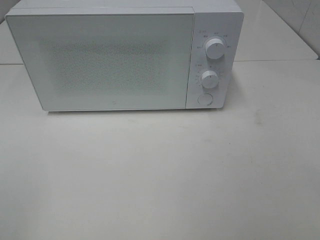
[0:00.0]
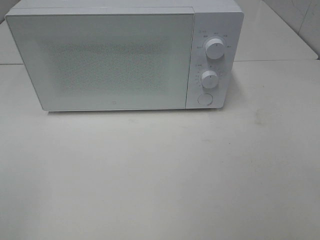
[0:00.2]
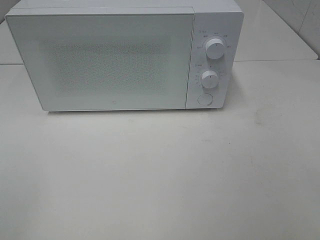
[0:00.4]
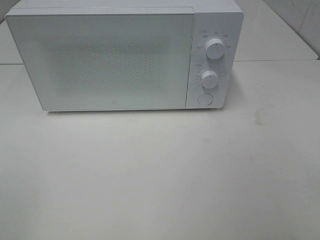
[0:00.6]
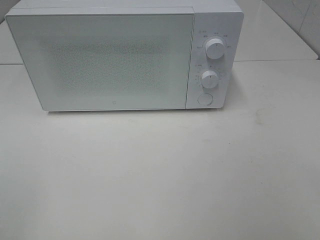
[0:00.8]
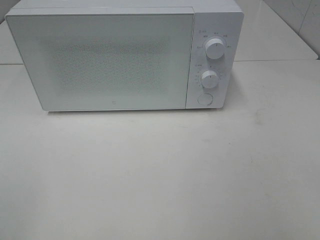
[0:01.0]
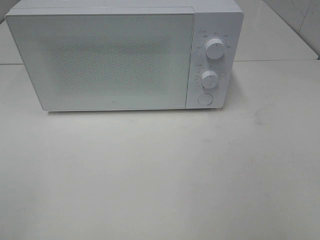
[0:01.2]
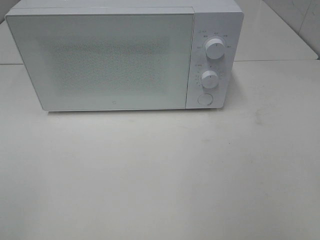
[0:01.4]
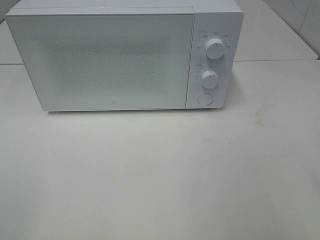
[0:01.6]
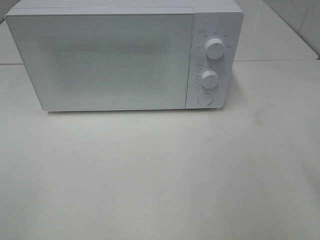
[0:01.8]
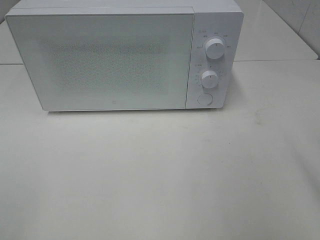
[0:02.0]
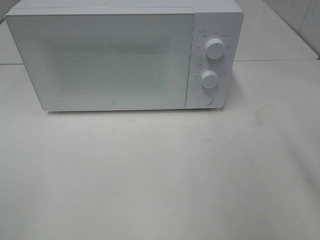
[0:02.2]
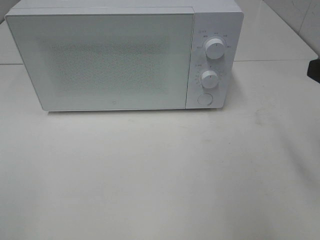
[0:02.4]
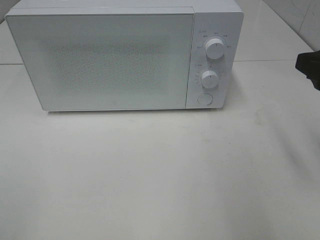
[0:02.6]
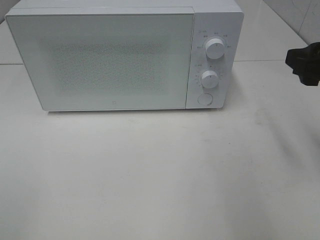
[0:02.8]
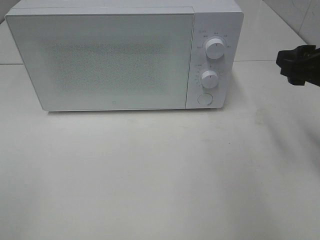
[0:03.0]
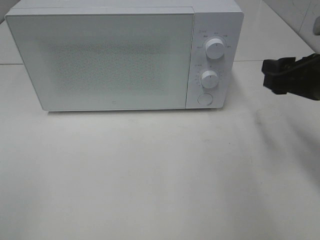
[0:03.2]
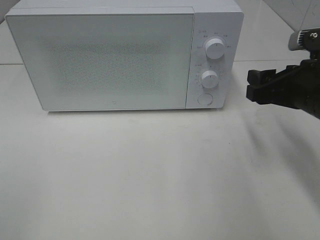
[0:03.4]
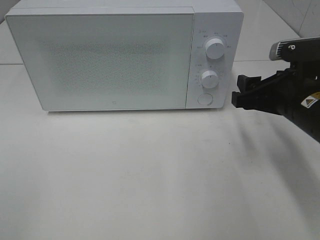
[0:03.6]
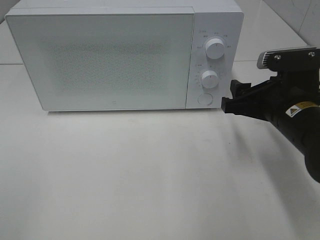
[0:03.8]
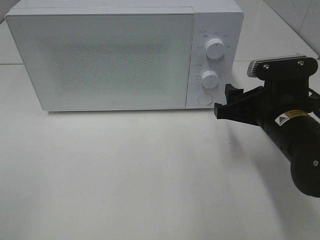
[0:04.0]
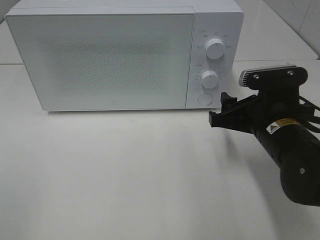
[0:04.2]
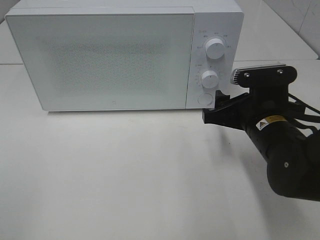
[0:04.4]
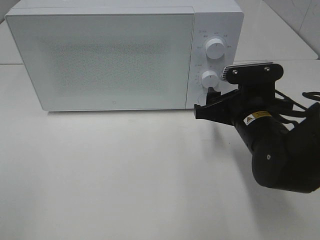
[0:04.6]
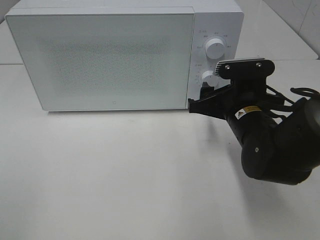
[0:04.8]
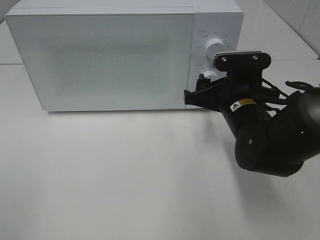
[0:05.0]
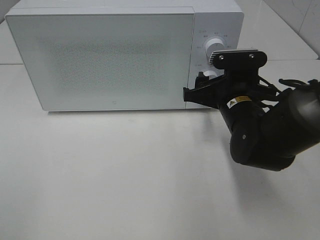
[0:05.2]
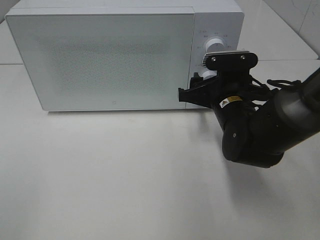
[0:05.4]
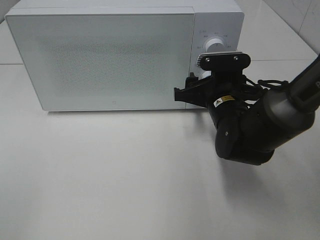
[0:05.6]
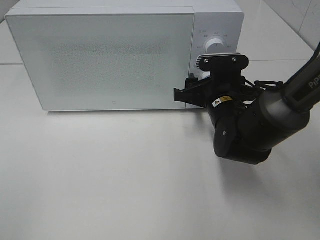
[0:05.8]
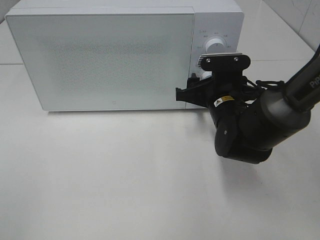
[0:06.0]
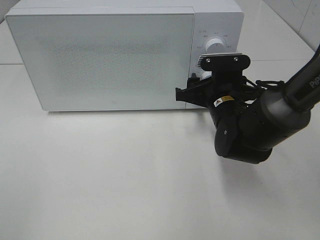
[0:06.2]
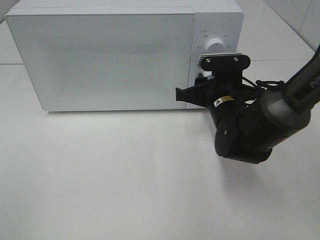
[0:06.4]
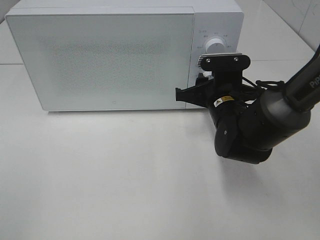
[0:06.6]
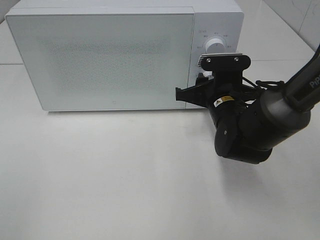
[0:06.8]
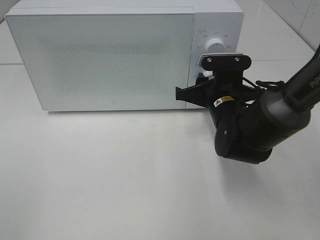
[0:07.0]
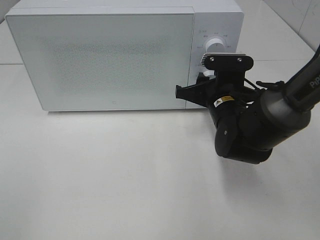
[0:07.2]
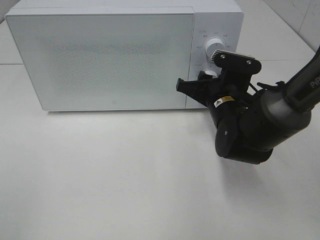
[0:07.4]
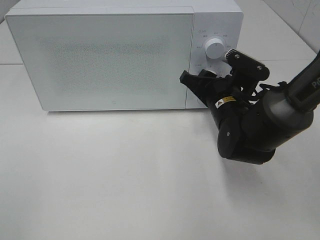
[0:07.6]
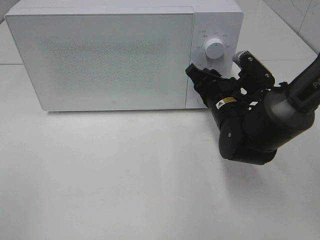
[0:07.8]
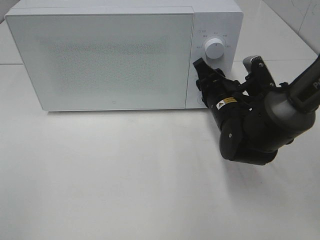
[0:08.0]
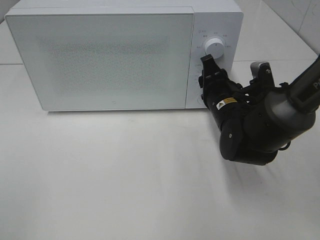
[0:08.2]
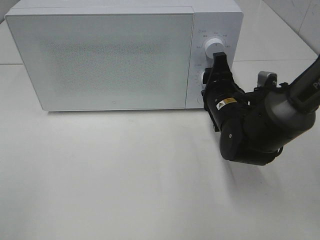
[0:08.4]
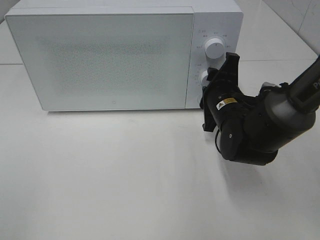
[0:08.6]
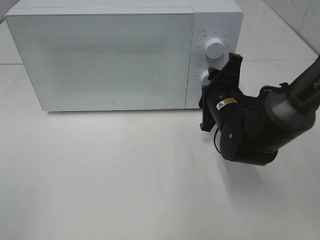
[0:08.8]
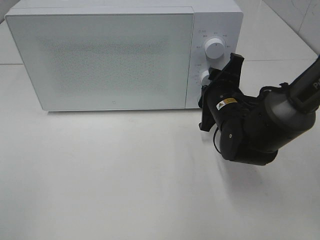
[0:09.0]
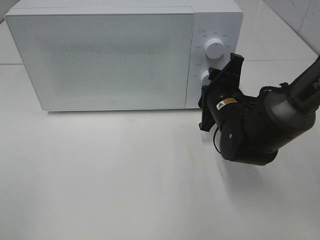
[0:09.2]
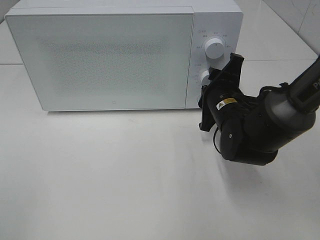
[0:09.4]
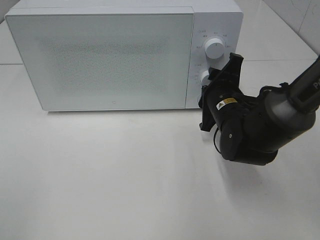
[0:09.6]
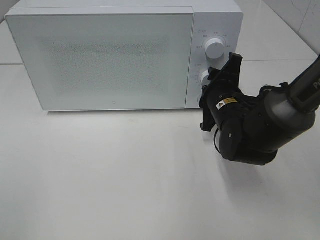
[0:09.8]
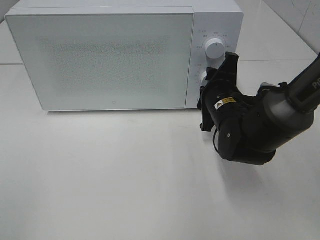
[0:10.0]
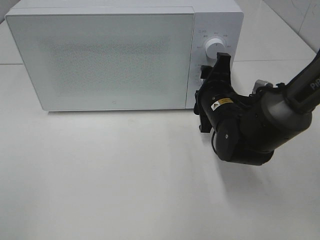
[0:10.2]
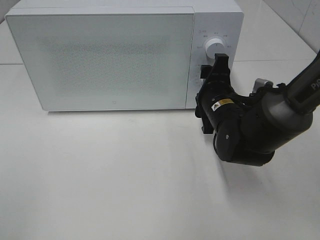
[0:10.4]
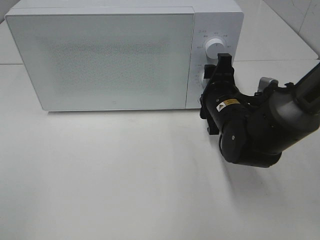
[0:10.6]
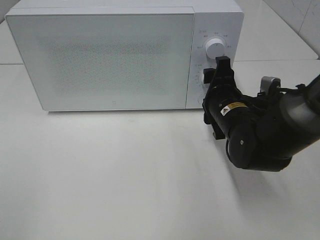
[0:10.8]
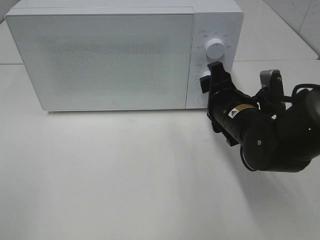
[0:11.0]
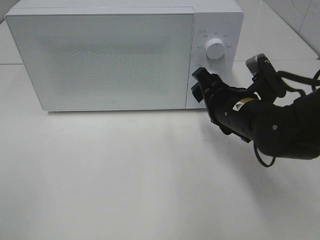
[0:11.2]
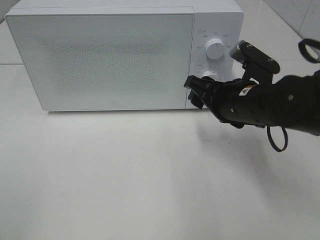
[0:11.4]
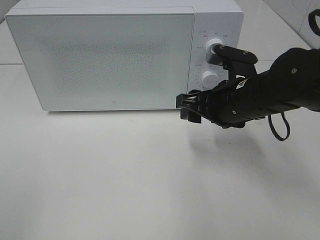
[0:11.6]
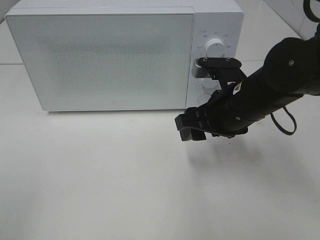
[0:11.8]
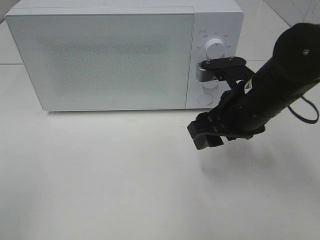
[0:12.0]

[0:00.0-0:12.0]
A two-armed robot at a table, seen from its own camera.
Task of the whole recording: Heat the burger.
Step, 0:00.0 to 0:10.0: Right hand: twist timer button.
0:01.6 to 0:03.0: The right gripper heads forward and downward, covering some 15 cm.
0:03.0 to 0:04.4: The right gripper goes roughly 15 cm downward and to the left.
0:04.4 to 0:06.0: The right gripper goes approximately 10 cm forward.
0:09.0 to 0:10.4: The grippers make only small movements.
0:10.4 to 0:12.0: The right gripper heads upward and backward, covering some 10 cm.

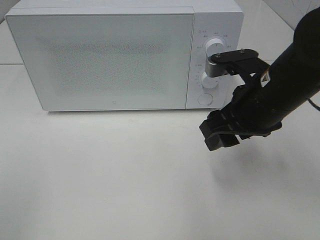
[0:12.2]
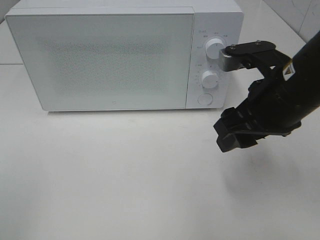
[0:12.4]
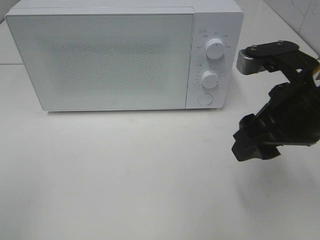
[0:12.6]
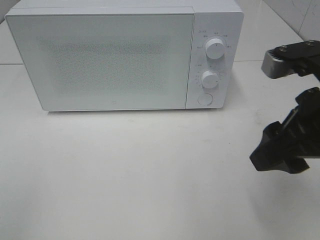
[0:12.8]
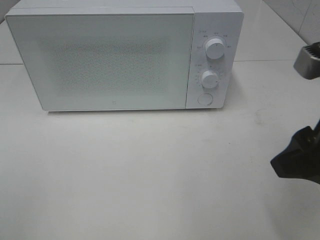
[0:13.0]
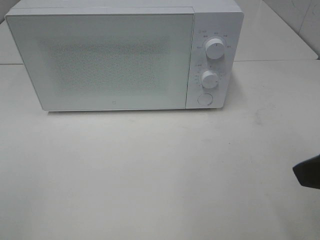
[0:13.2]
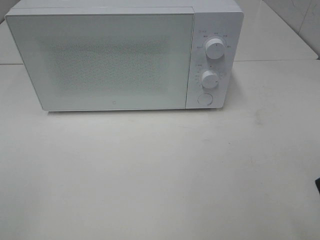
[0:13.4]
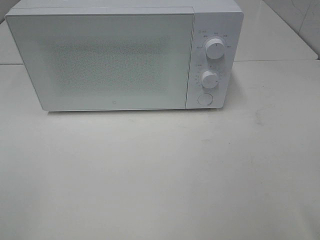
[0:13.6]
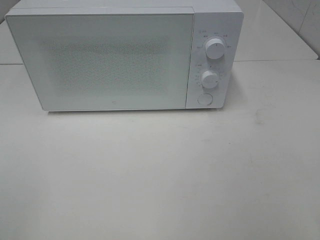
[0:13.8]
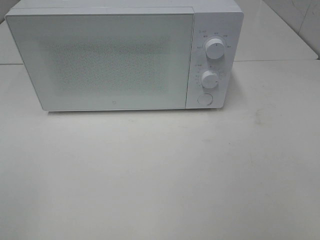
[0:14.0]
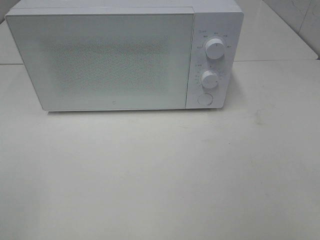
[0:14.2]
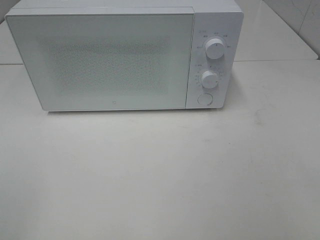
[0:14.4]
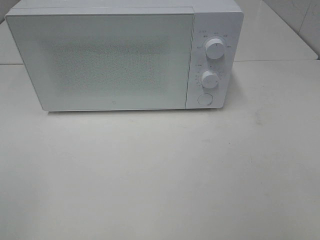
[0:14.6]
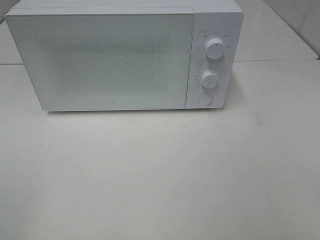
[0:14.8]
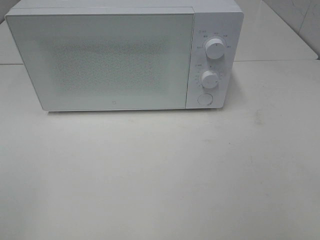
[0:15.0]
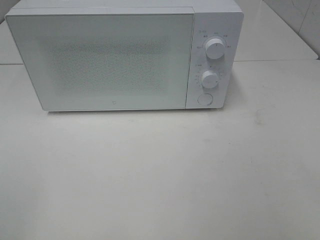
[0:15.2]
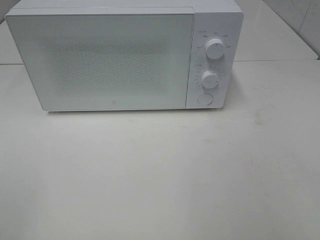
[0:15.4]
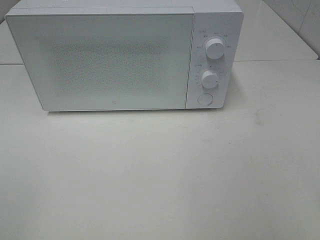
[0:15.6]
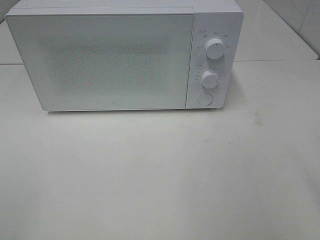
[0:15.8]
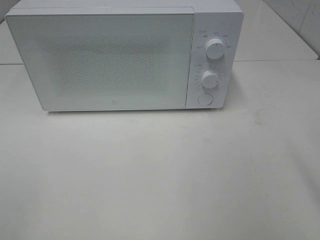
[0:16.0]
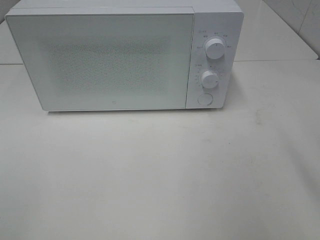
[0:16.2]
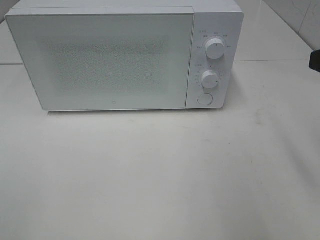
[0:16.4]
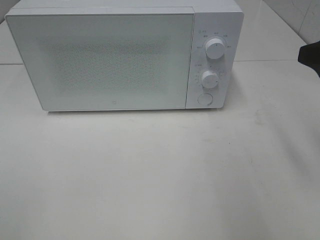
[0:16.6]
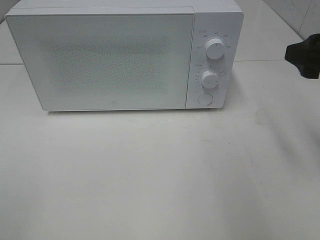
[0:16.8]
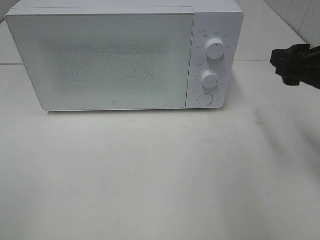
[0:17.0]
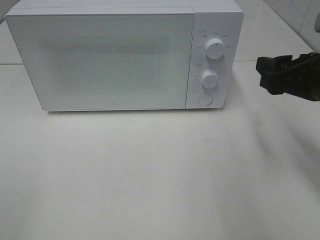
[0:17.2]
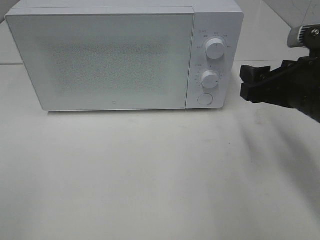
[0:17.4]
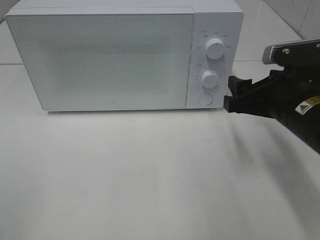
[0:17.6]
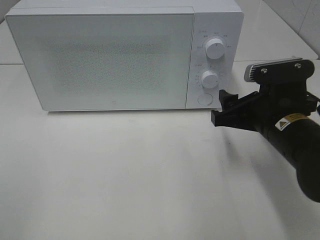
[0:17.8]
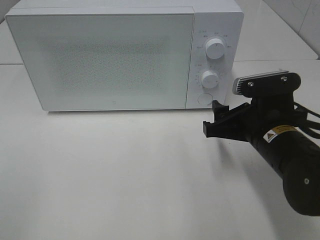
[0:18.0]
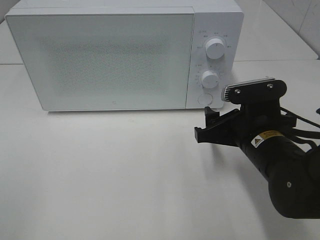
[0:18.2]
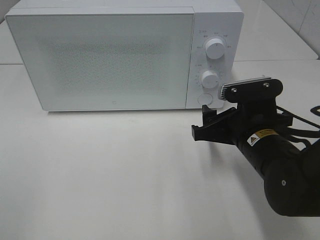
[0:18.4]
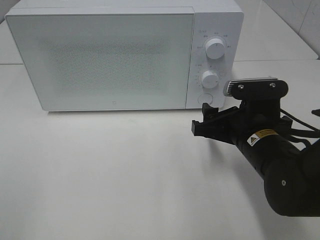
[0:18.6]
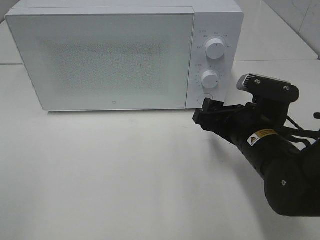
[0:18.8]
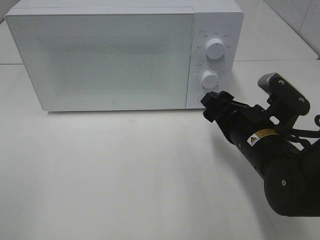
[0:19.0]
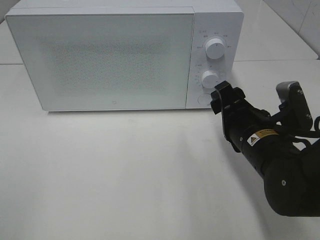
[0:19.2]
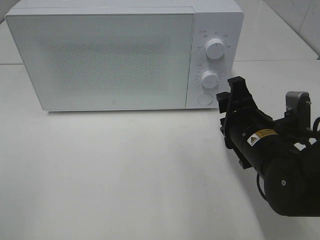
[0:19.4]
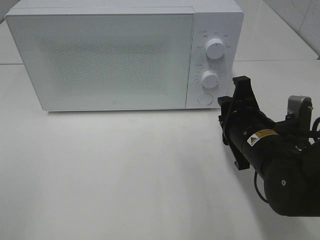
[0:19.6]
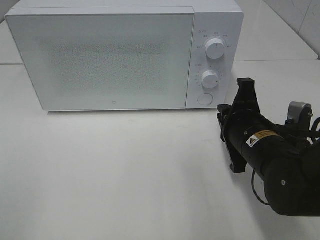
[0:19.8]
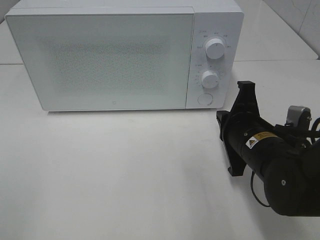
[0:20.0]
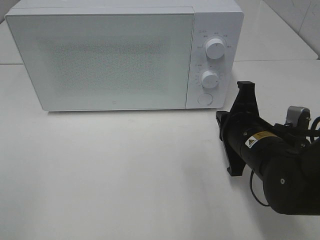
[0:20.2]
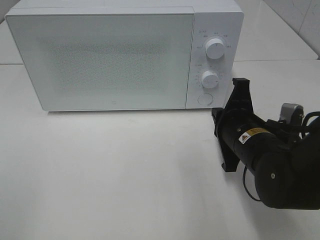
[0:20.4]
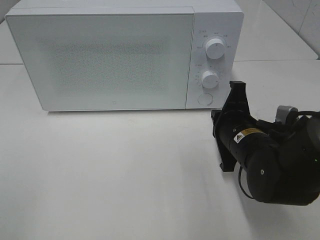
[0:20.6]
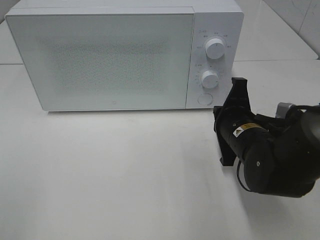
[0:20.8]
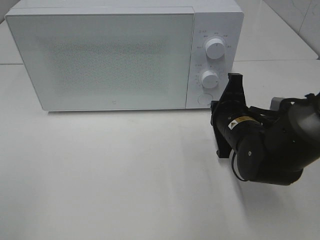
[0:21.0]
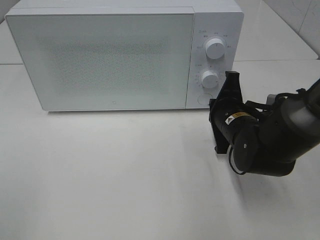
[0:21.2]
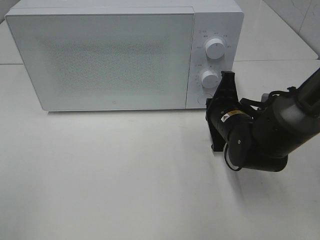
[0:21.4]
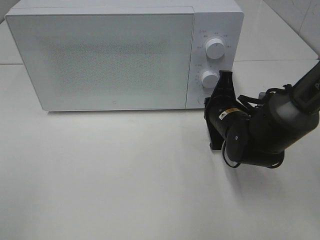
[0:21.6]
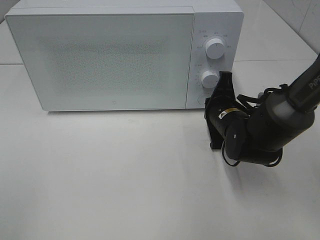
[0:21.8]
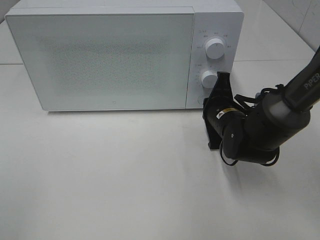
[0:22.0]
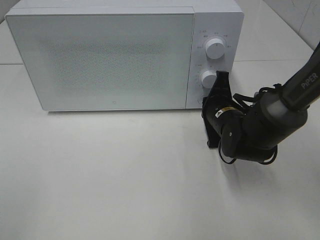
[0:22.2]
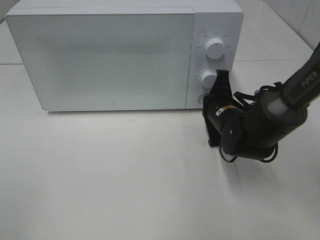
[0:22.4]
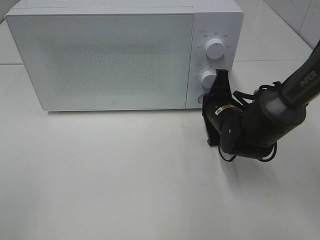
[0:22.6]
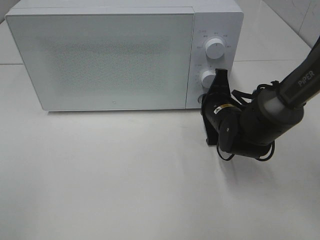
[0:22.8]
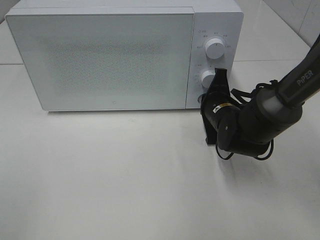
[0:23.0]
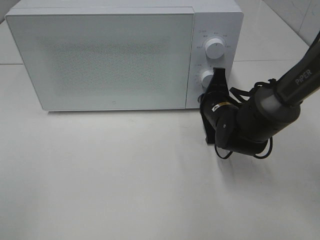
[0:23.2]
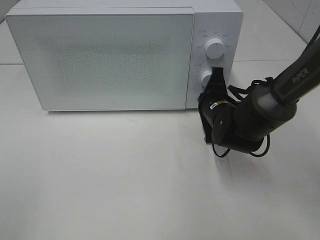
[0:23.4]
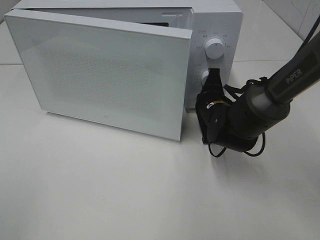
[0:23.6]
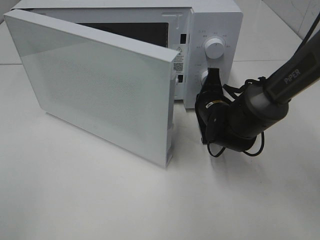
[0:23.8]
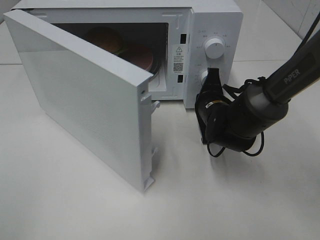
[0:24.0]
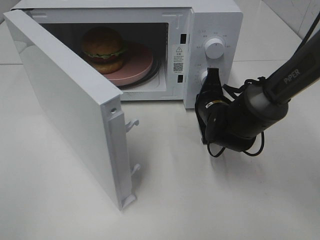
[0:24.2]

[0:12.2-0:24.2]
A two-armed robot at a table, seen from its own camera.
Task of the whole recording: Heat the burger.
0:12.2 to 0:13.8: The right gripper goes some 25 cm backward and to the right.
0:15.2 to 0:16.6: The right gripper shifts some 20 cm forward.
0:16.6 to 0:18.2: The right gripper shifts some 20 cm downward and to the left.
0:18.2 to 0:19.8: The right gripper closes.
0:19.8 to 0:21.2: The right gripper travels forward by roughly 5 cm.
0:21.2 to 0:22.6: The grippers stay close to where they were, moving slightly.
